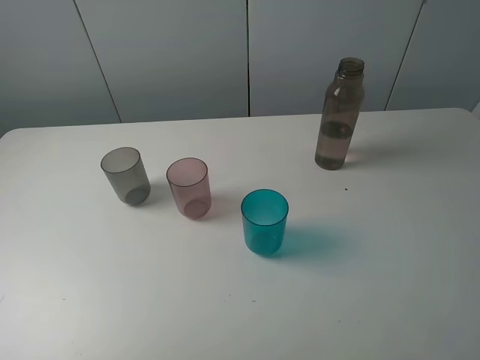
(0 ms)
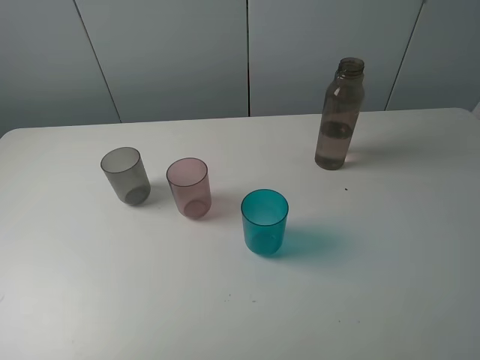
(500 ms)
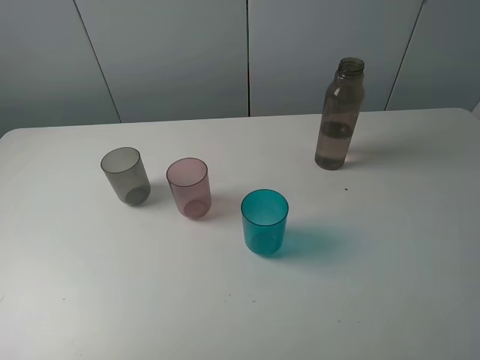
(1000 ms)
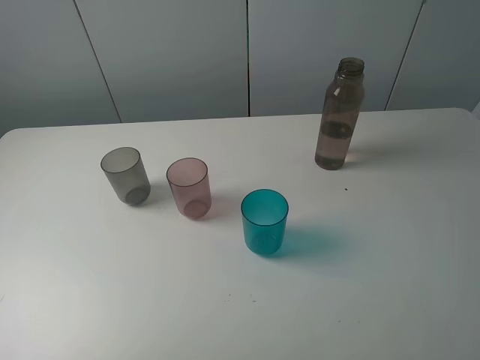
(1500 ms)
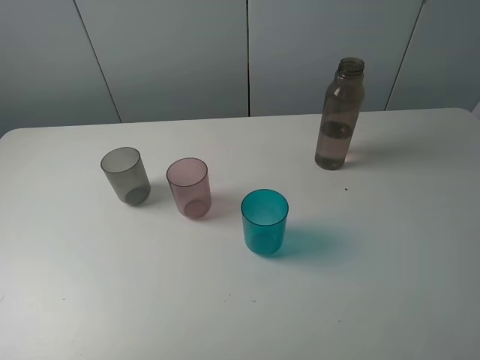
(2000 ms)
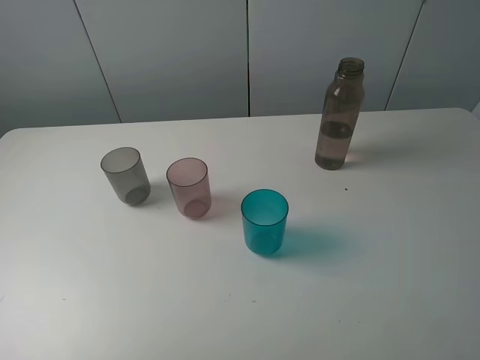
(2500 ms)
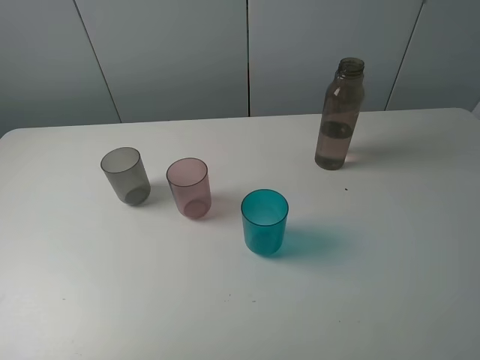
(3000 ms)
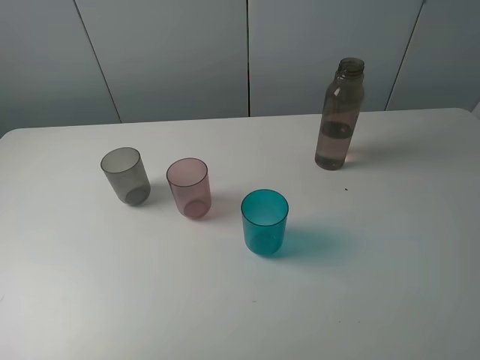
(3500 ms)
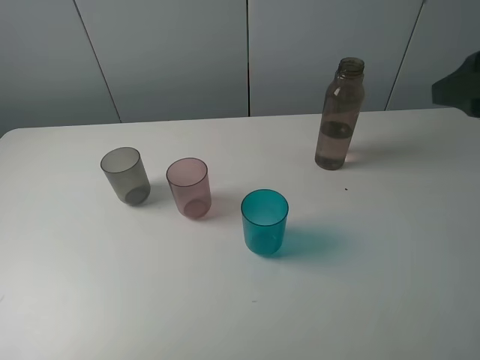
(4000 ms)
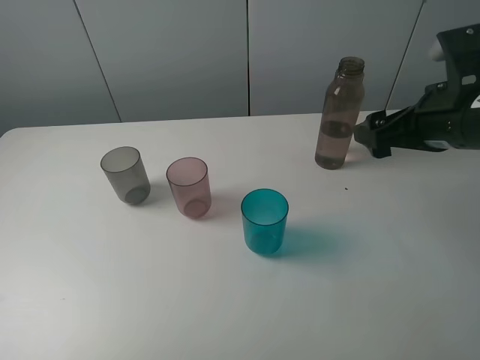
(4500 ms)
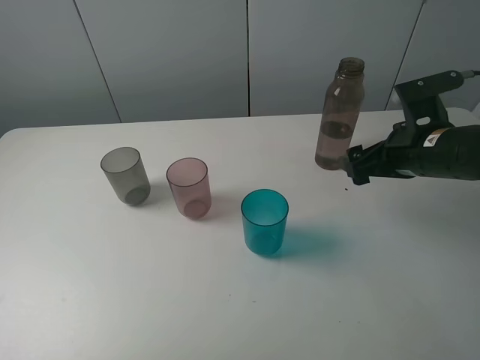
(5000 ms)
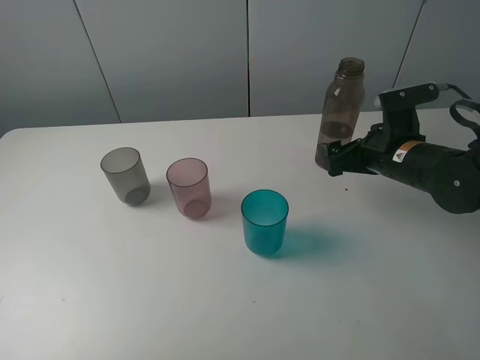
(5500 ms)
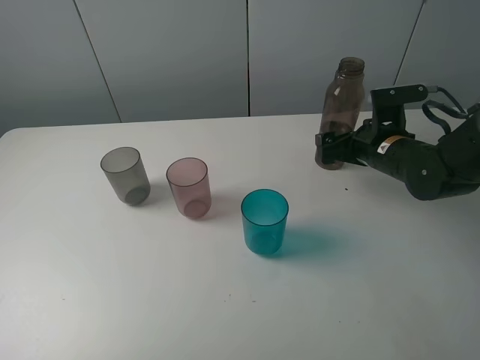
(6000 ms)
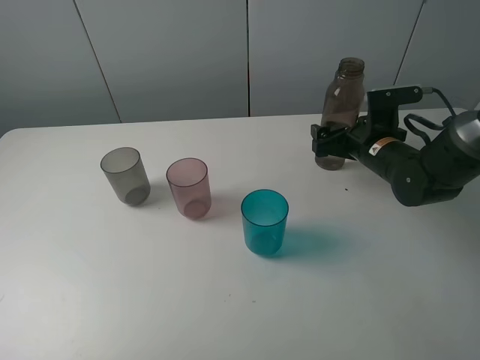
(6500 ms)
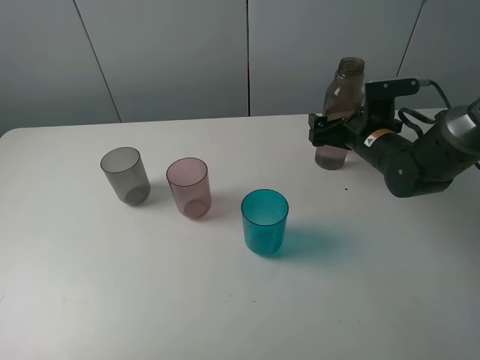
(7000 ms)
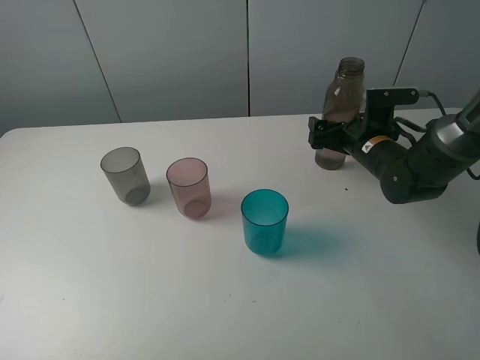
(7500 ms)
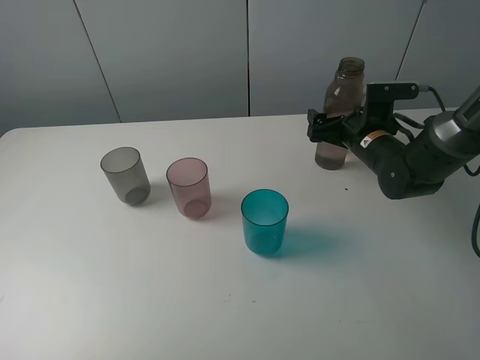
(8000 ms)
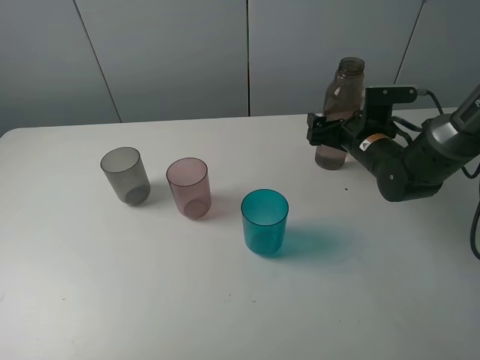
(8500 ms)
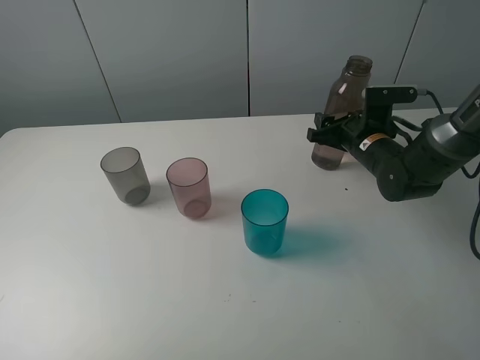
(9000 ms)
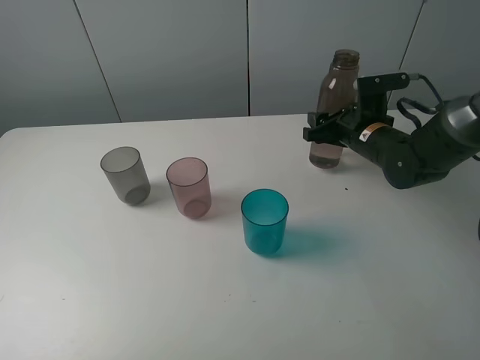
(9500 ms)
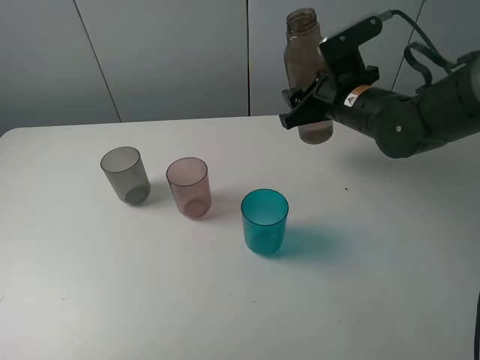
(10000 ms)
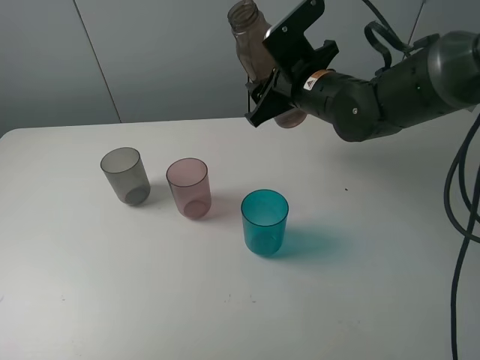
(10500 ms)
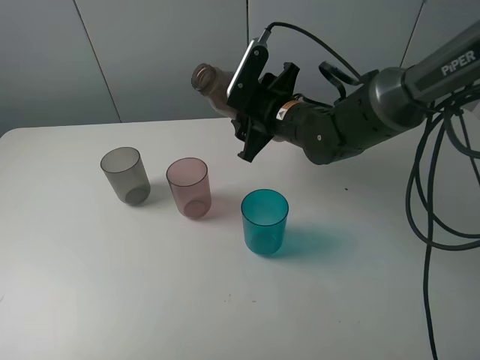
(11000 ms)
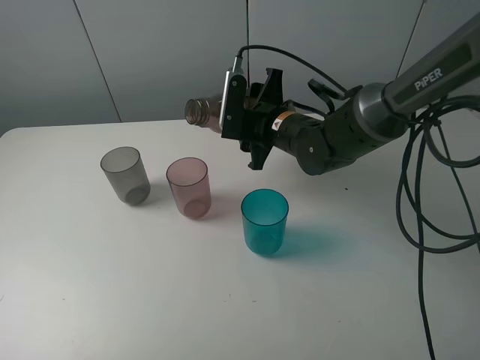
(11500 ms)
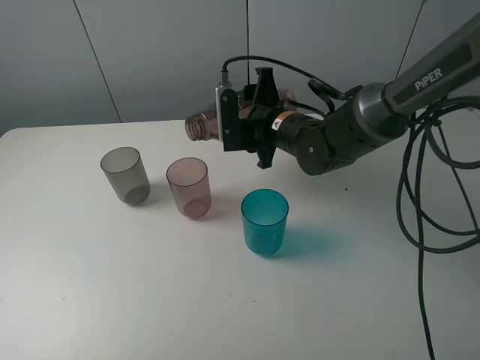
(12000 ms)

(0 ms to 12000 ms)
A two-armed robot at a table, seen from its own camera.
Task of the whole recording: pick up the bottle filled with water and pour water into the middle cup of the three cups.
Step, 0 ms - 9000 ms: Grasp the brown bottle with the right gripper.
0 ms - 2000 ms: Both grippers stay about where they are.
2000 ms - 4000 ms: The right gripper goes about 20 cm forward.
4000 ms - 6000 ms: The right gripper travels downward and forward by about 25 cm.
6000 ms - 8000 ms: The grippers make only small movements.
8000 ms - 10000 ms: The right gripper is displaced upward and to the left by roughly 10 cm, and closes.
10000 ms - 12000 ms: The right gripper moves to the left, about 10 cm.

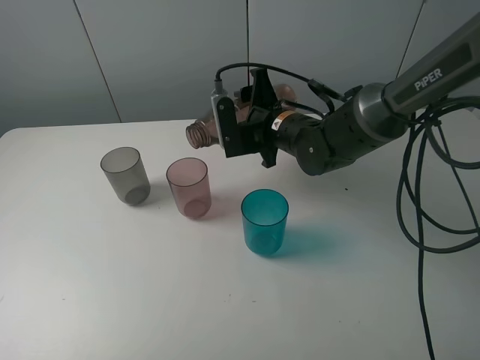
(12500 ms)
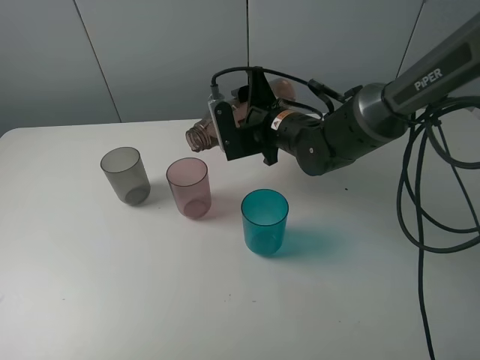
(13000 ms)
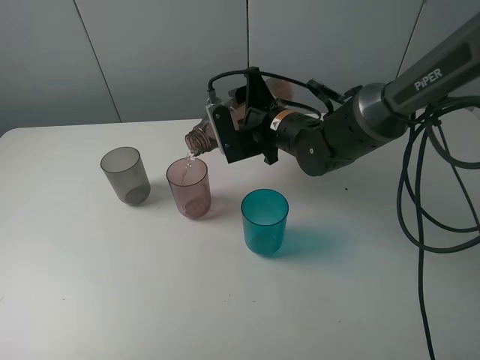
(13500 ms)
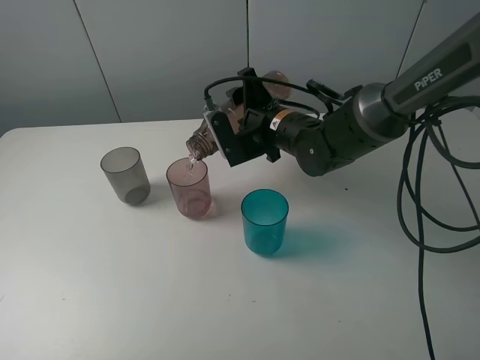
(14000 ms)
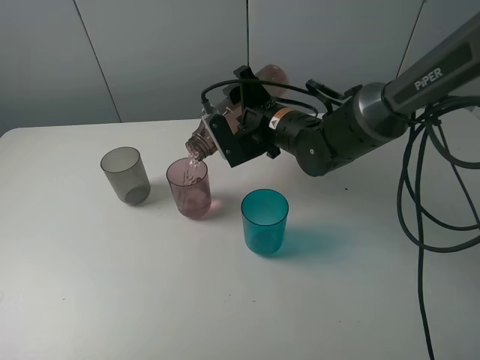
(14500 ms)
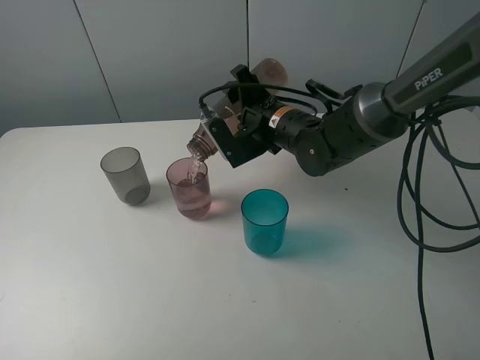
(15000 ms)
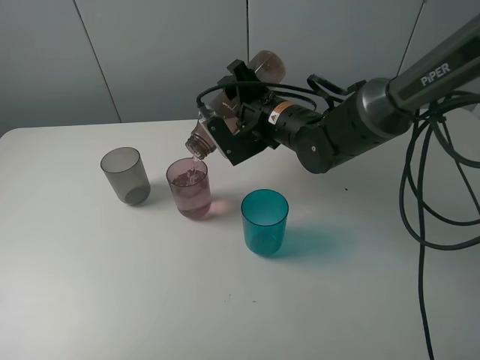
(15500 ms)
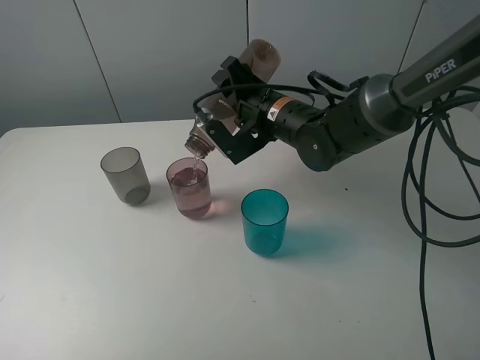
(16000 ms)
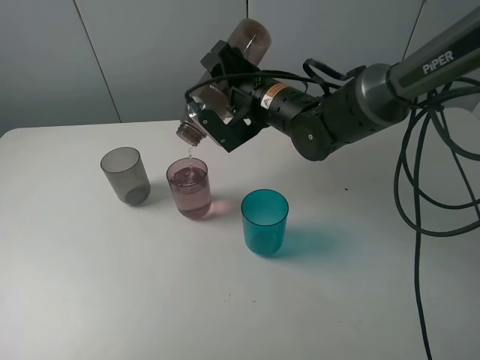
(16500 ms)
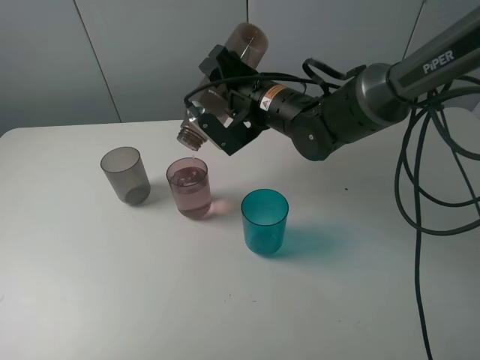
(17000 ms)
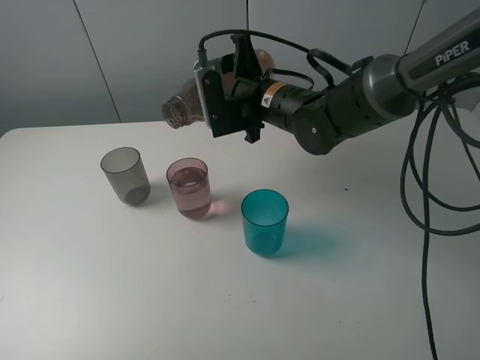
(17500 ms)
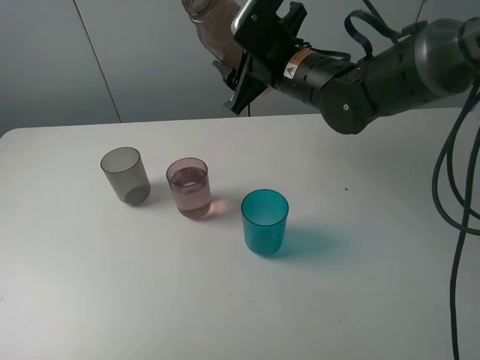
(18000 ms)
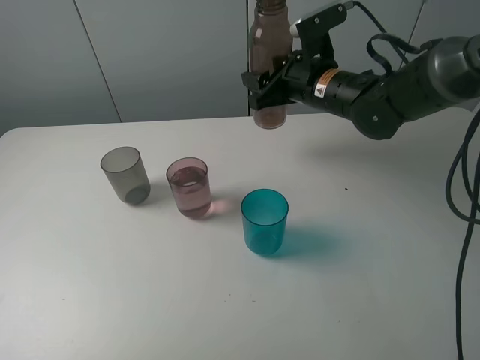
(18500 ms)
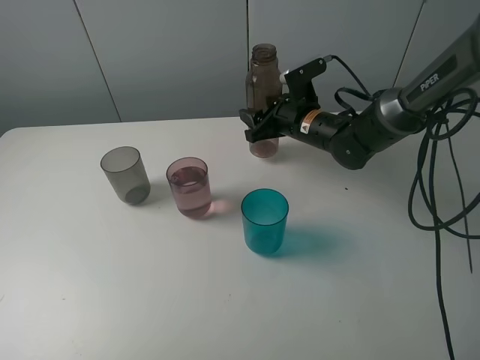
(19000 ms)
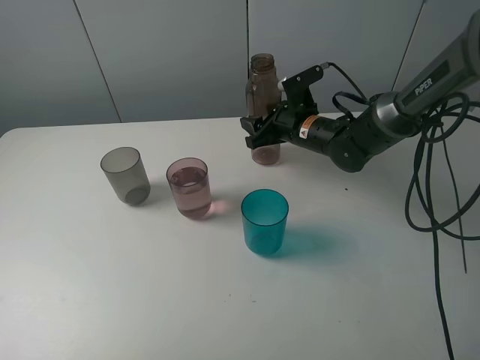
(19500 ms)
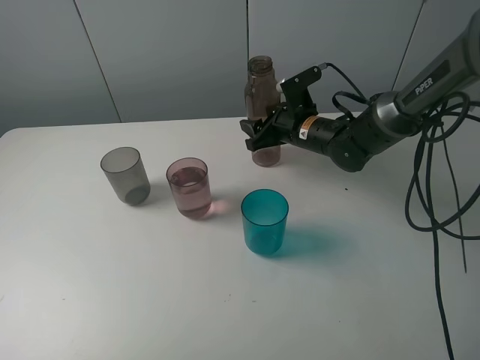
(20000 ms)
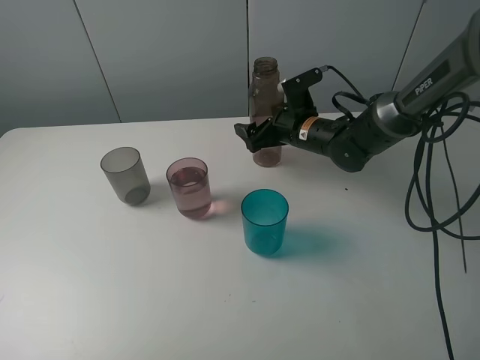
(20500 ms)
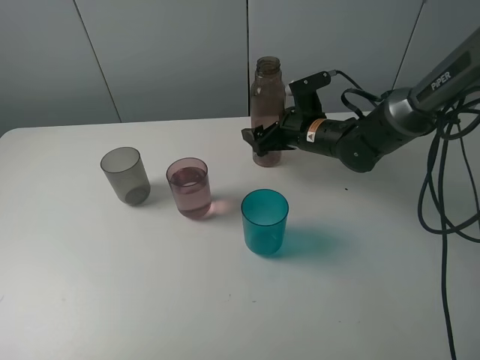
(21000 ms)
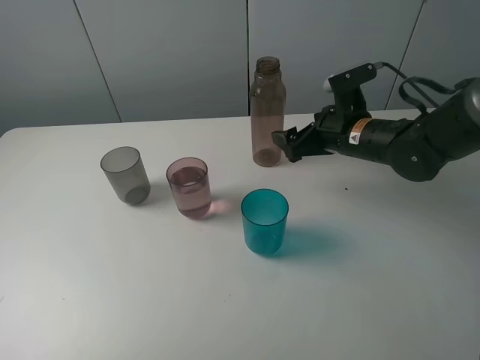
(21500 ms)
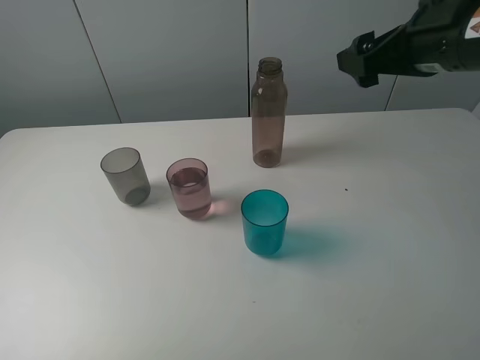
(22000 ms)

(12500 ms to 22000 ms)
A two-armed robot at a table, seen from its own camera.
Task of the whole recording: pick up the bottle filled with water and pour water into the middle cup of the three cups.
Step, 13000 ms - 21500 ms: Place the brown bottle with the right gripper.
12500 ms - 14500 ms: The grippers move only a little.
14500 ms - 16500 ms: The grippers stay close to where they were, moving slightly.
16500 ms - 18000 ms: The right gripper ends up roughly 5 cm from where it was.
18000 ms - 20000 ms: The right gripper heads downward, covering roughly 15 cm.
20000 ms - 22000 ms: The right gripper moves upward, backward and to the right, roughly 25 cm, and opens.

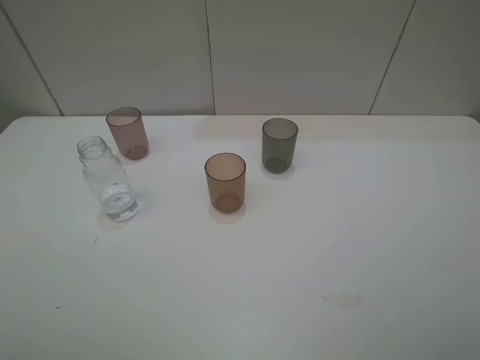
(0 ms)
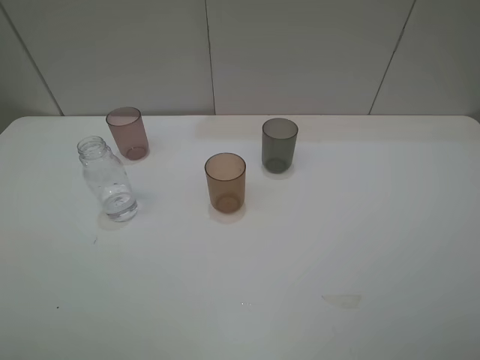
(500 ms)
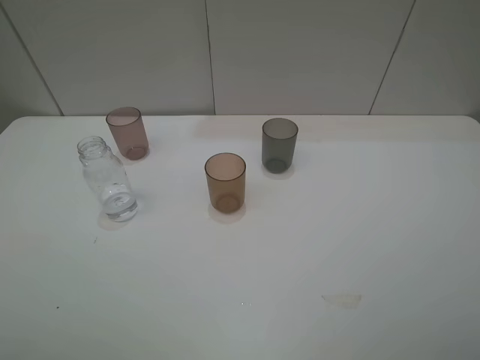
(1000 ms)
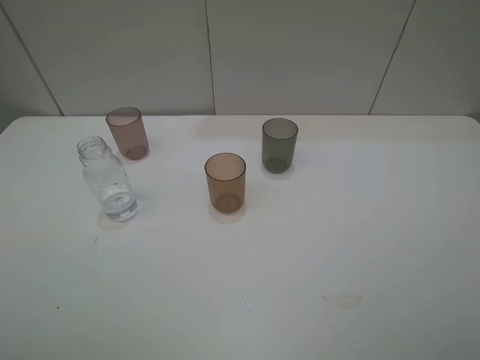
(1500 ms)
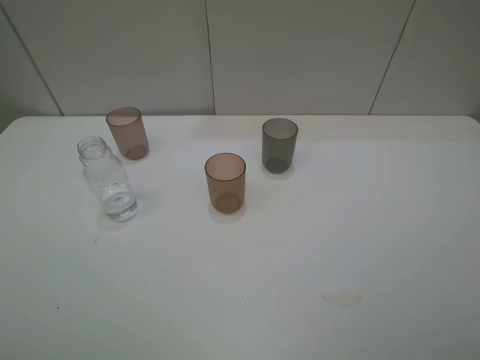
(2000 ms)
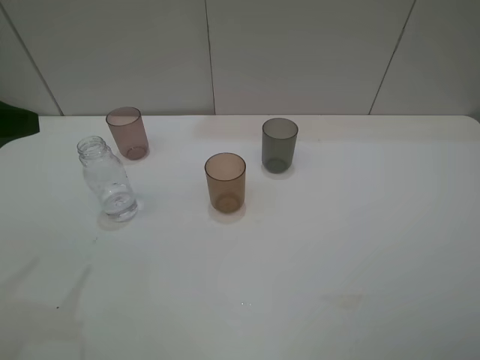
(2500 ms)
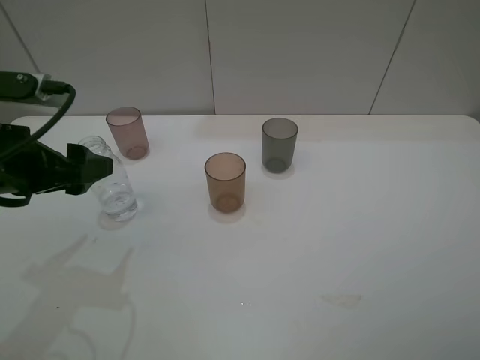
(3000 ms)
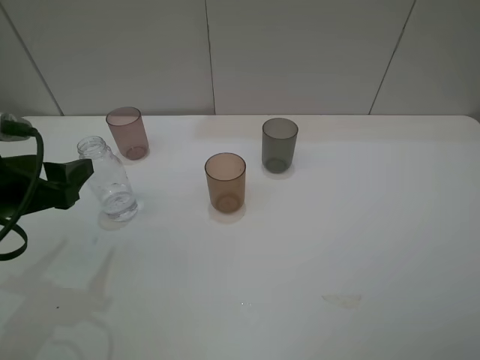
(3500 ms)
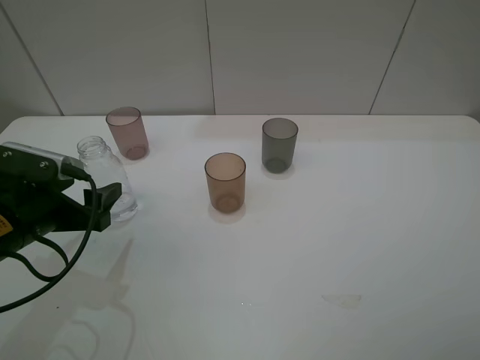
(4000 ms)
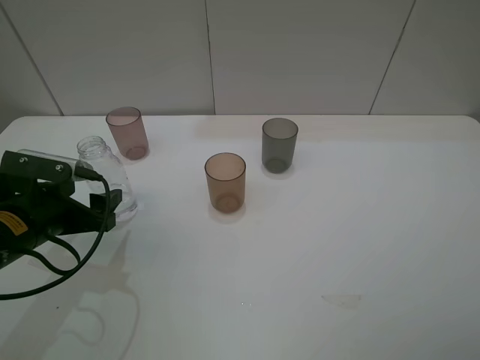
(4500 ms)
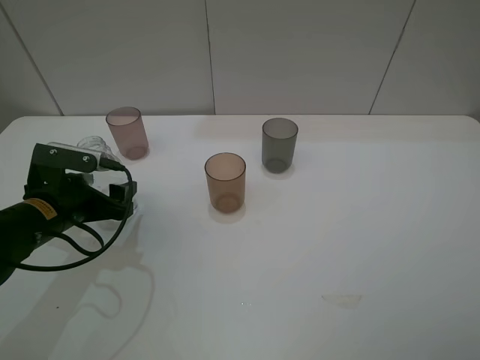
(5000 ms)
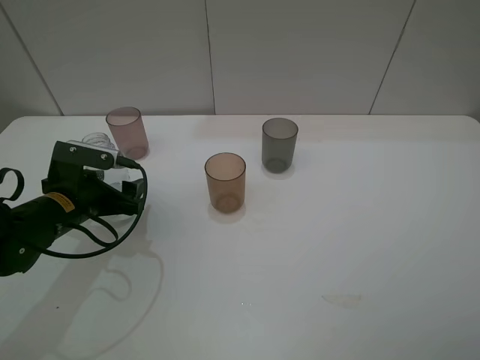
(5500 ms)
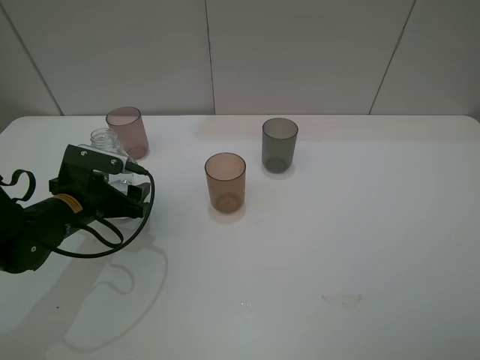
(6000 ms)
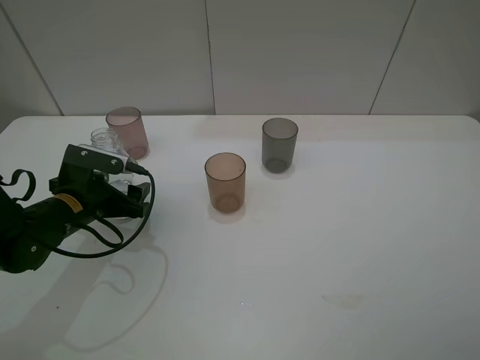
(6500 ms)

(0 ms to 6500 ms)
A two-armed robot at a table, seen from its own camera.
Task of the whole recording: pick up the bottle filled with water and pour water into the middle cup of the three cups.
Step, 0 ms - 6000 ms: Grasp the transparent bottle with the left gripper.
2000 ms - 4500 ms: The left gripper moves downward and forward, some 25 cm.
4500 ms - 6500 ms: The left gripper heads forward, covering about 5 cm.
